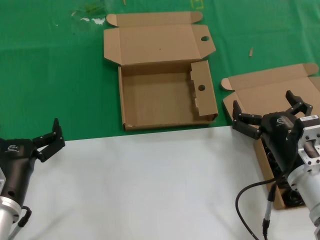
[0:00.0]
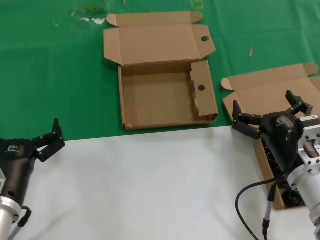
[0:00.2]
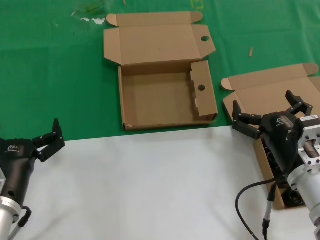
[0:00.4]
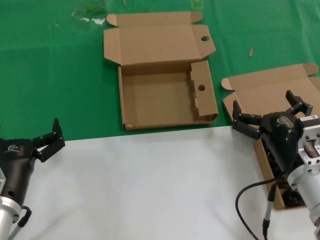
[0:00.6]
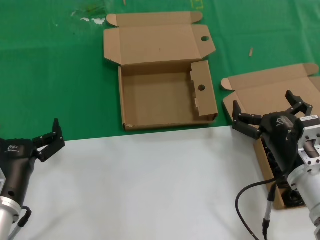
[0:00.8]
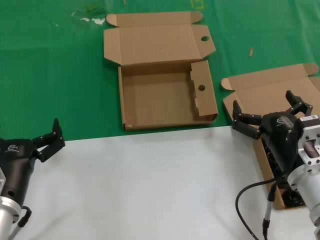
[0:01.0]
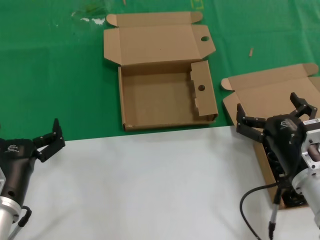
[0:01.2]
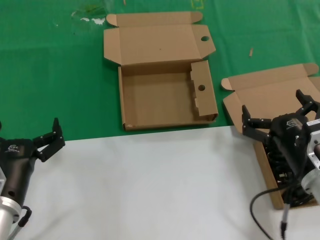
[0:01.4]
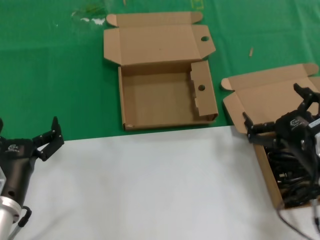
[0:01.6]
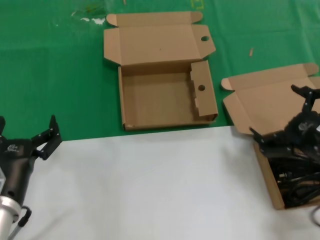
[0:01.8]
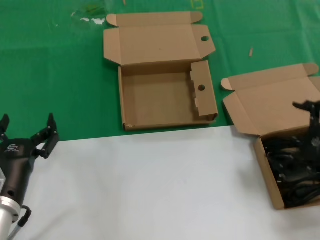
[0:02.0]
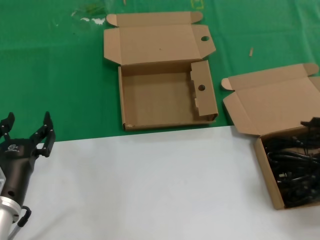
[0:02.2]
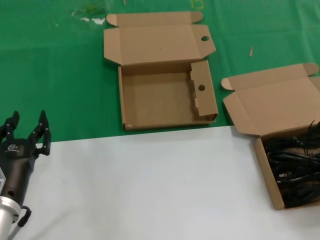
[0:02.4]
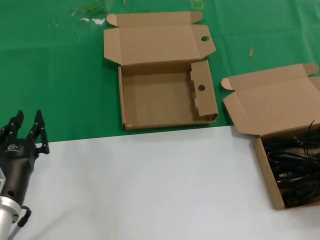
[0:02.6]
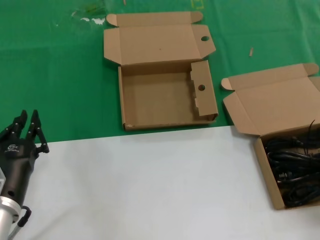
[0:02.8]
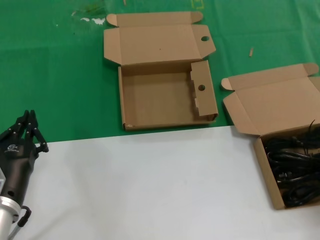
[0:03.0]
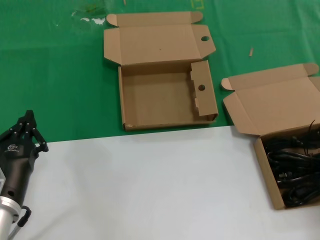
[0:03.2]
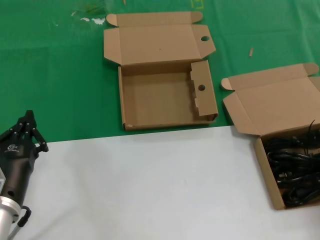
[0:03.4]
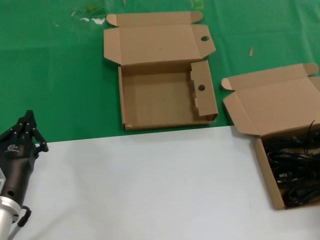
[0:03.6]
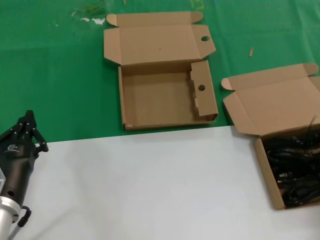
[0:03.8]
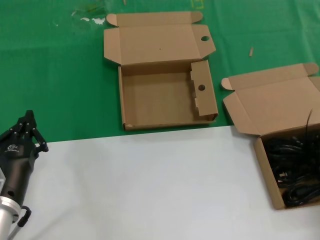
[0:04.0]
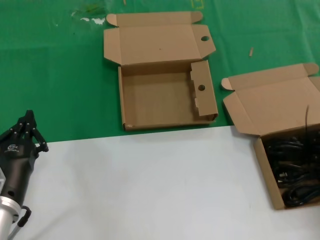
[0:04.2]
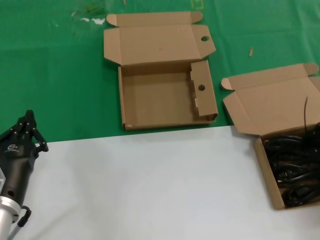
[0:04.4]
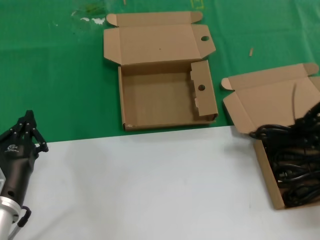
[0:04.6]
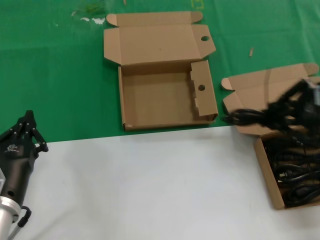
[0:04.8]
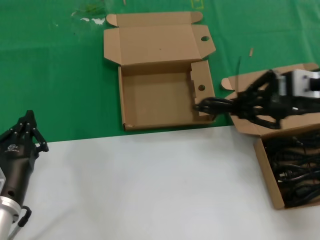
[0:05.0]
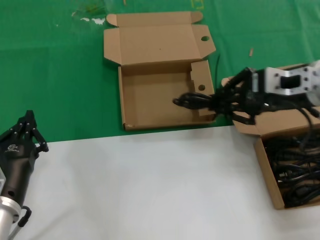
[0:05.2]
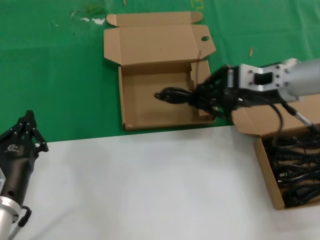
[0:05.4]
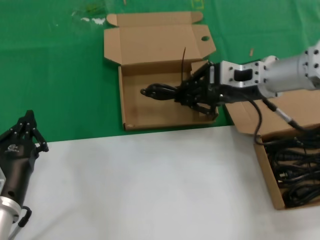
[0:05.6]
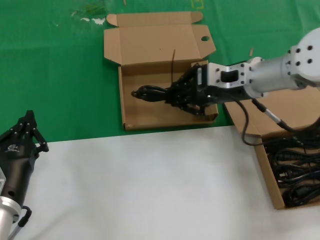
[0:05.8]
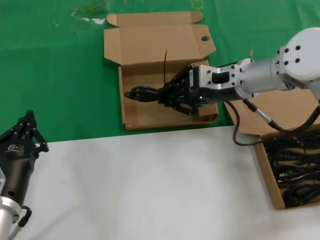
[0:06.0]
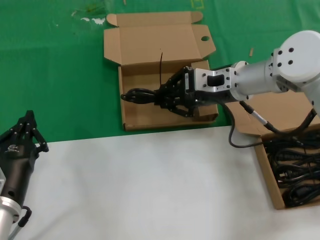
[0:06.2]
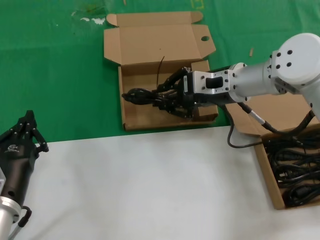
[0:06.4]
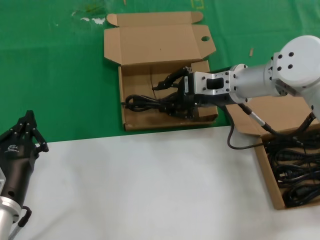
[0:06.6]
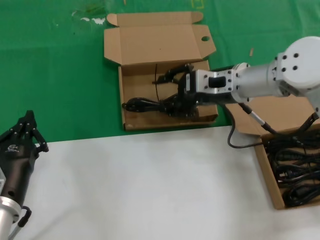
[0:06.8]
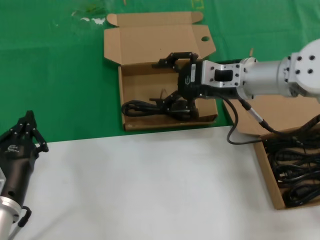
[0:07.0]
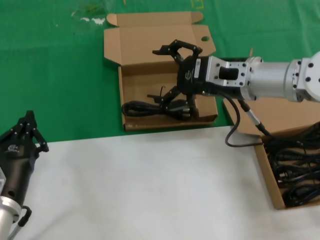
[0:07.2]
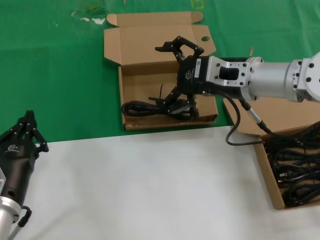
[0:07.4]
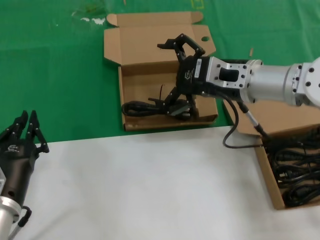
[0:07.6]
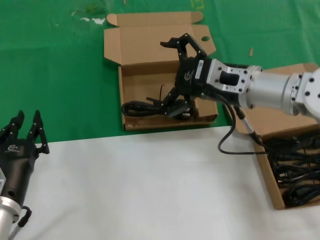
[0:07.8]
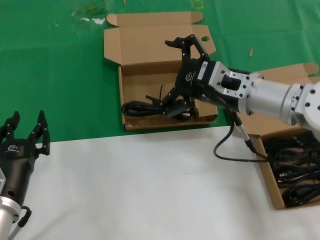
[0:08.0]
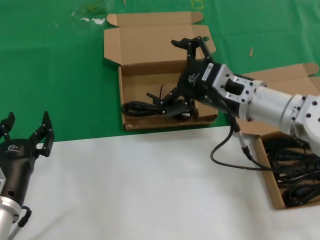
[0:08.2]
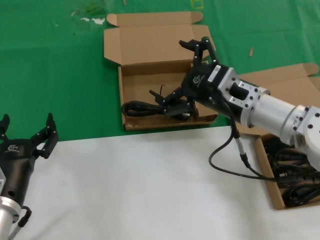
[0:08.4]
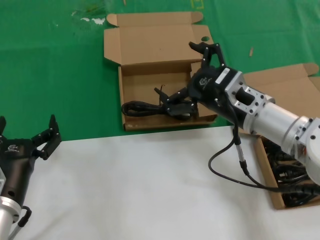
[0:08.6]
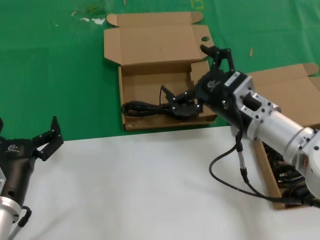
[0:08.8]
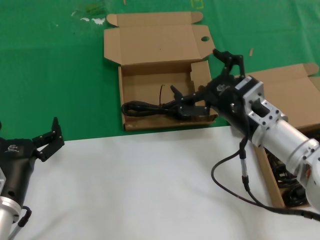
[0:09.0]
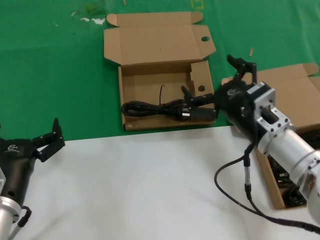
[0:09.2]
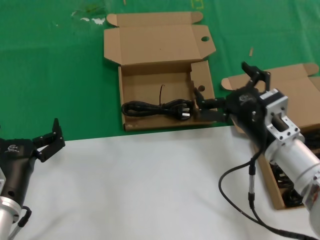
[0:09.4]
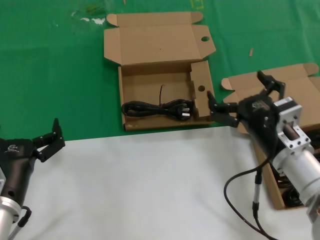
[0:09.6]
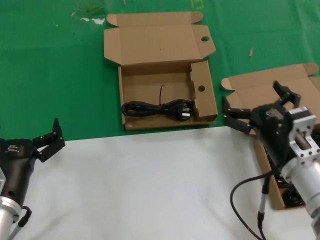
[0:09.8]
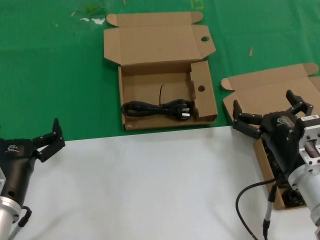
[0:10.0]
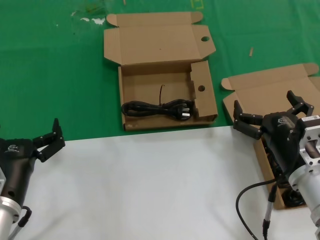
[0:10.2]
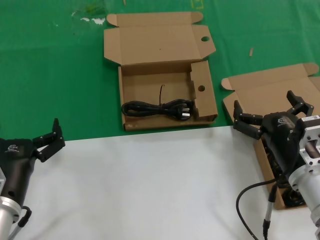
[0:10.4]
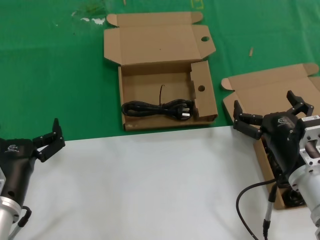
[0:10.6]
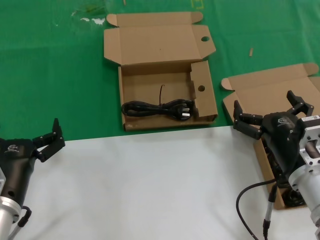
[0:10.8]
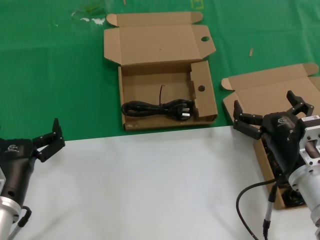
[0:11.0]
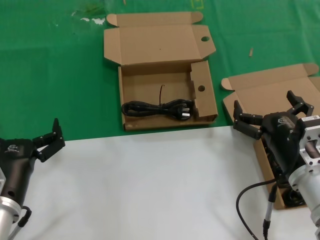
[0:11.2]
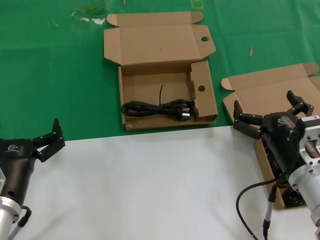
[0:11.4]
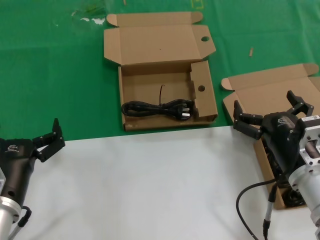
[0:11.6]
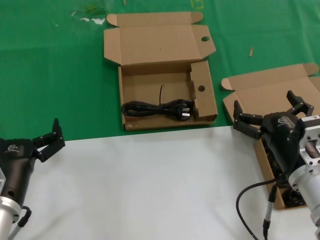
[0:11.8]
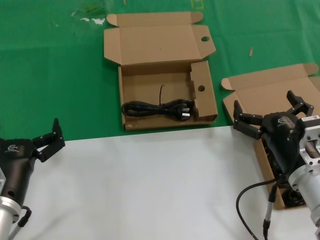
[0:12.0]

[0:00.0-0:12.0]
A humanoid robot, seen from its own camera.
Task of the whole recording: take the parts from the box containing them and put them into an empty box.
Step, 0:00.0 to 0:03.6: Grasp the data cable.
Step, 0:04.0 to 0:07.0: Place the data cable in the another box.
0:00.0 to 0:01.6: The right hand changes place by about 5 cm.
0:01.6 to 0:03.0: The right hand travels to the right and upward by approximately 15 cm.
0:04.4 to 0:06.0: The right hand shifts about 25 cm to the left and forward.
0:06.0 to 0:07.6: The hands stay close to where they were, moving slightly.
0:07.6 to 0:09.0: The right hand shifts roughly 10 cm downward and backward.
0:09.0 to 0:10.4: The right hand goes about 10 cm backward and downward.
0:10.4 to 0:12.0: The two hands keep their place.

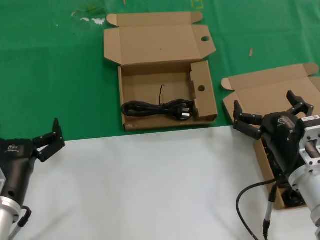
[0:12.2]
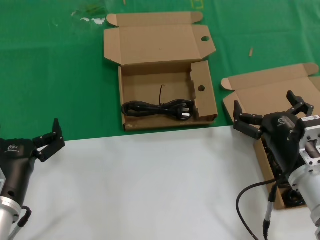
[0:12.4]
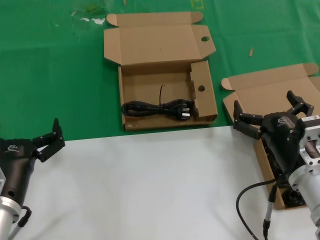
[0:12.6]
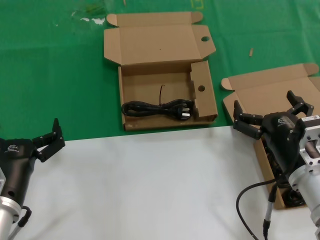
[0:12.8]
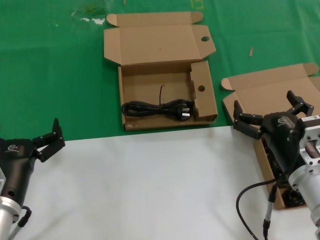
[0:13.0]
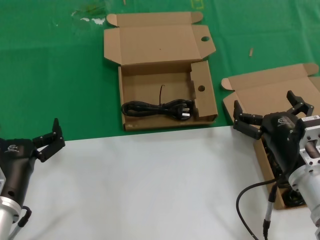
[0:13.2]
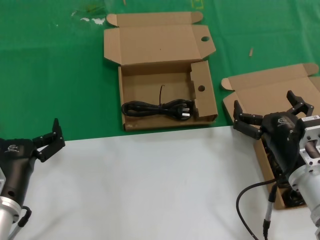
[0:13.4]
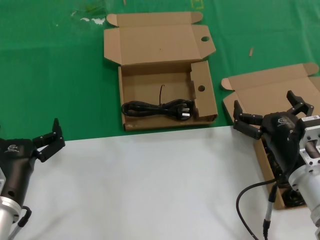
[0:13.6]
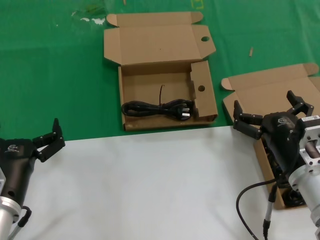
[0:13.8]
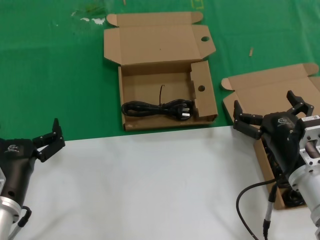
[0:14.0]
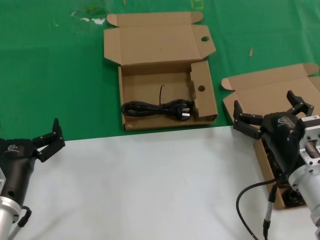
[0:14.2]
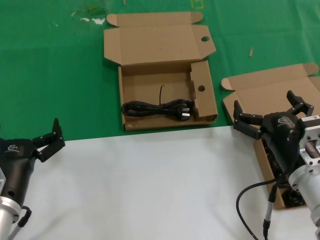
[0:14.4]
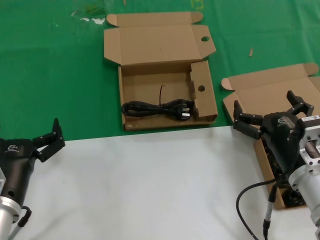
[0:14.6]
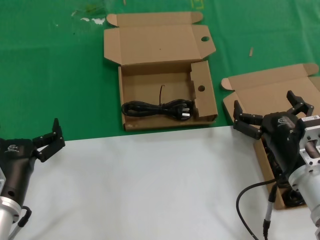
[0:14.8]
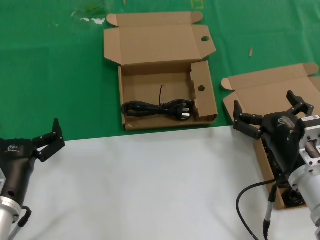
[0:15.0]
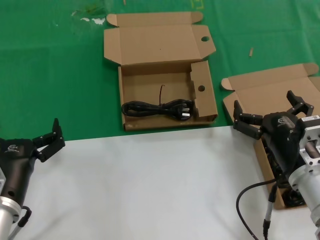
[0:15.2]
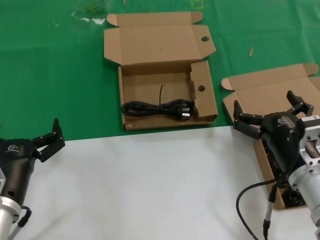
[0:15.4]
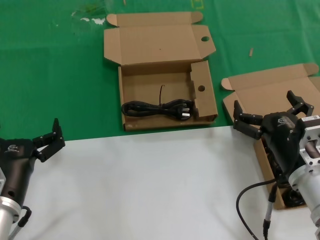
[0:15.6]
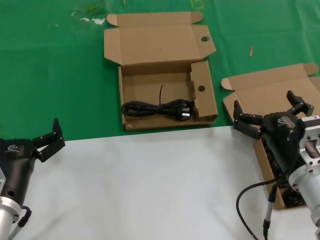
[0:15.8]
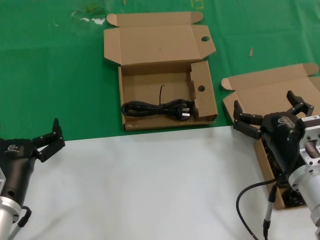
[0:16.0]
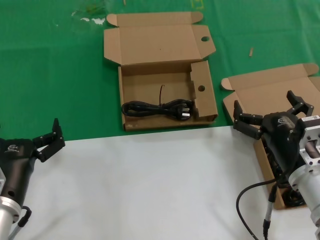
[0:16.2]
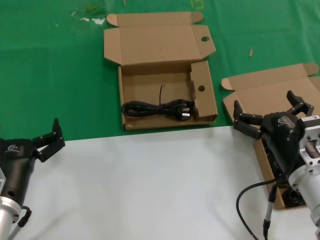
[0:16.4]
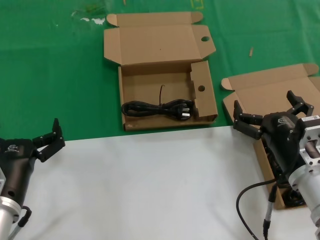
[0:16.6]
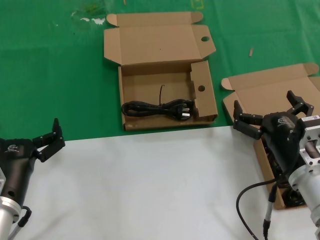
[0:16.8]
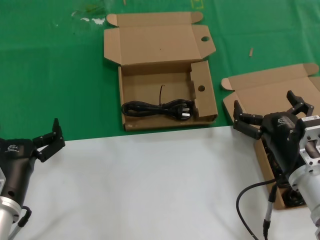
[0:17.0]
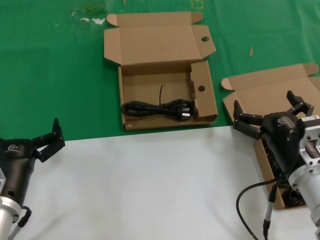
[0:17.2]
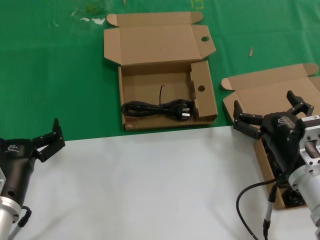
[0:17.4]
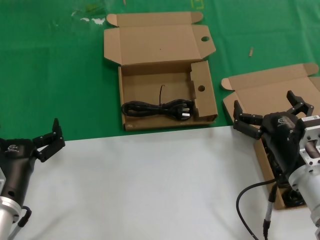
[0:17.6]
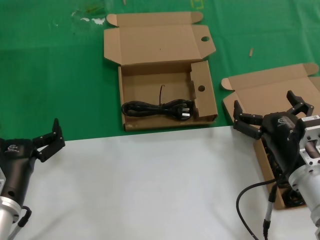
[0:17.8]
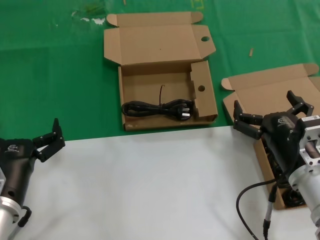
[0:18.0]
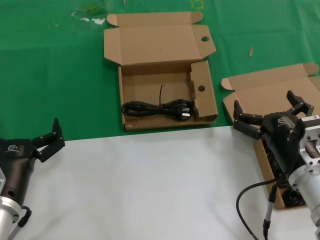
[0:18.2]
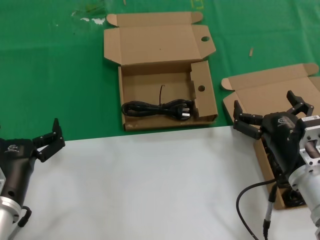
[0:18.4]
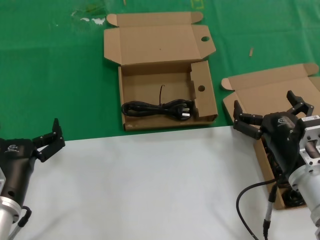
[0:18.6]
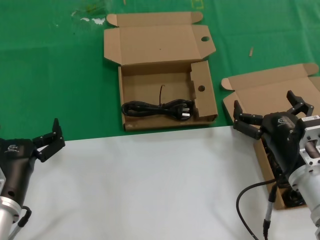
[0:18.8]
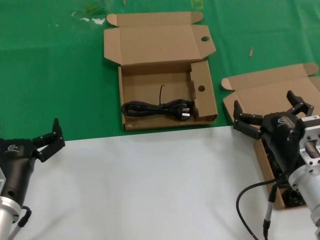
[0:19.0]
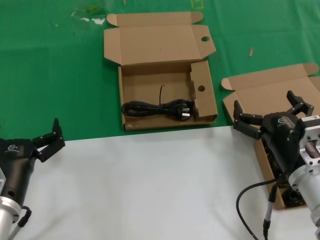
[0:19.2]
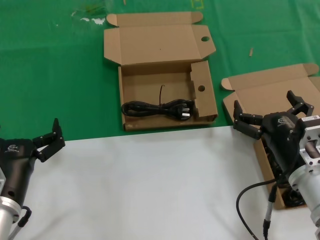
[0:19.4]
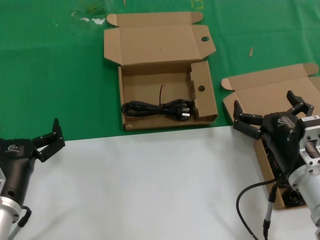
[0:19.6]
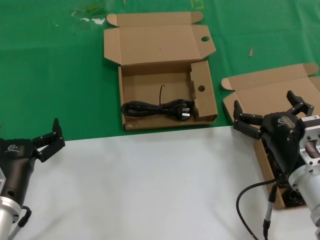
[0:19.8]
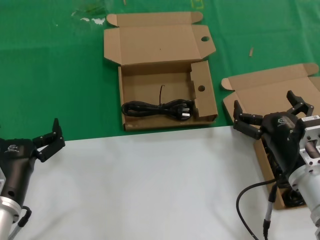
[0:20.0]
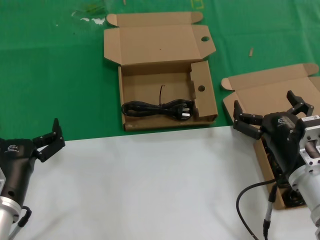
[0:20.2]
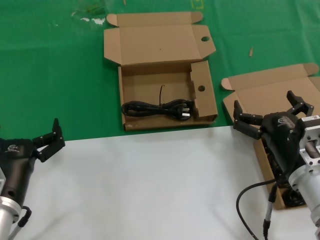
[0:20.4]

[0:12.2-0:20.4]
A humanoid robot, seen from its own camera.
Task of the whole recording: take the parts from the box containing them and put them into an empty box.
0:12.2 to 0:20.4: Both hands stay about where they are.

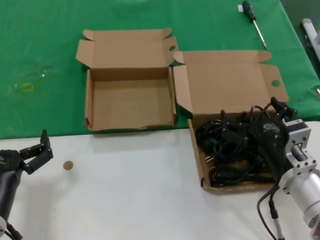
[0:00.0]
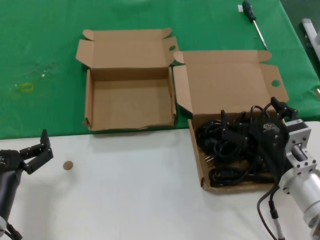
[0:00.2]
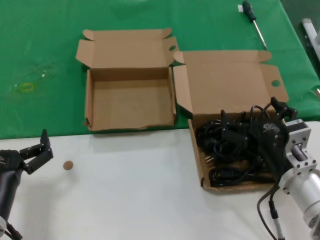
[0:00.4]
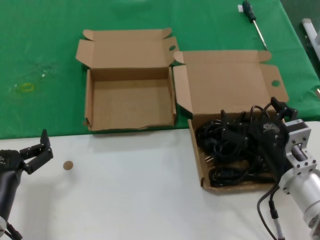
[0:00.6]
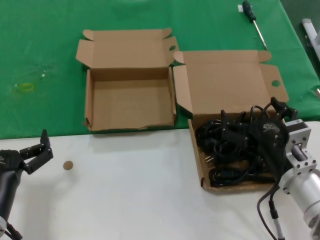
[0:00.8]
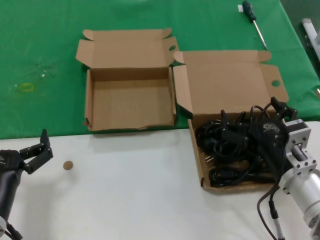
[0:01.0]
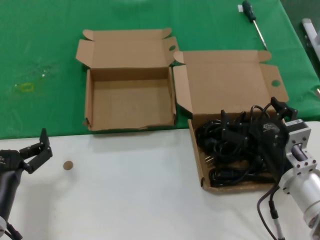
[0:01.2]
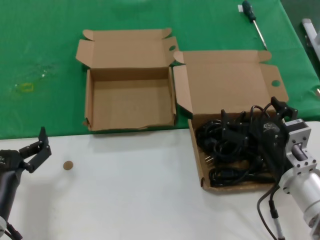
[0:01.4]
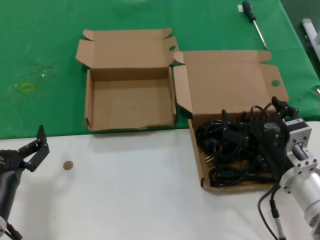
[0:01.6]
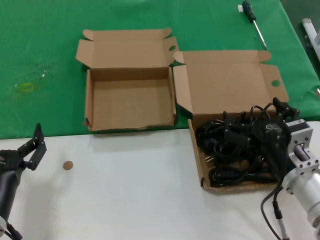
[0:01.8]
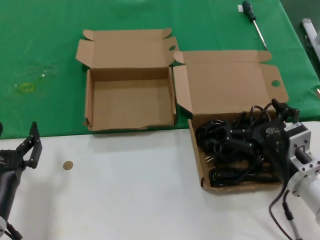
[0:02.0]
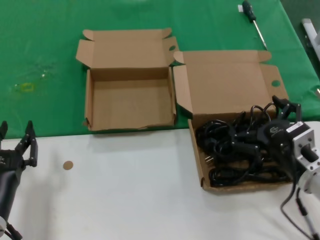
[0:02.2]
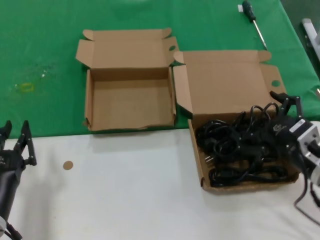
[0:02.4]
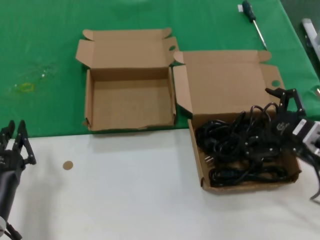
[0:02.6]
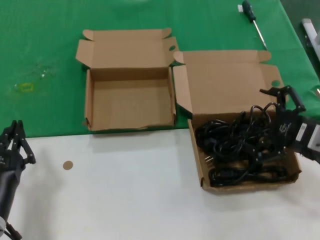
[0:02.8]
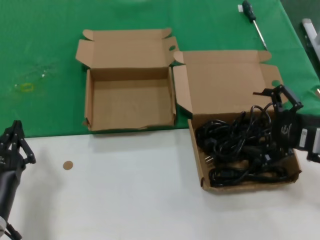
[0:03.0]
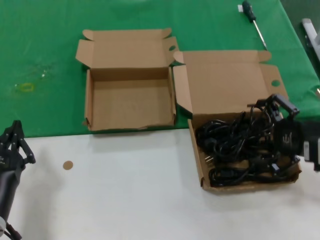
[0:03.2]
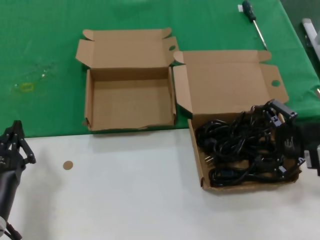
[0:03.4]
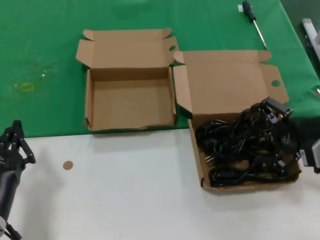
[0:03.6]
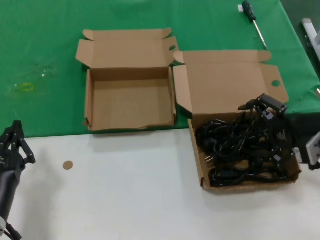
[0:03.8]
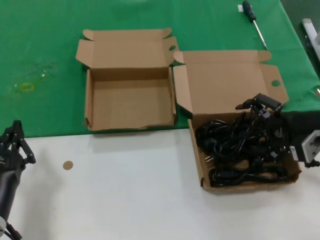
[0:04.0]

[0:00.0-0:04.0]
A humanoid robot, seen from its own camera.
Task of the whole recording: take the parts from the box containing them and put them into an empty box.
0:00.0 to 0:01.4: Both hands stay about where they are.
0:01.4 to 0:02.6: The right hand is displaced to the right by roughly 10 cm.
0:02.6 to 0:04.0: The right hand moves forward and upward, approximately 10 cm.
